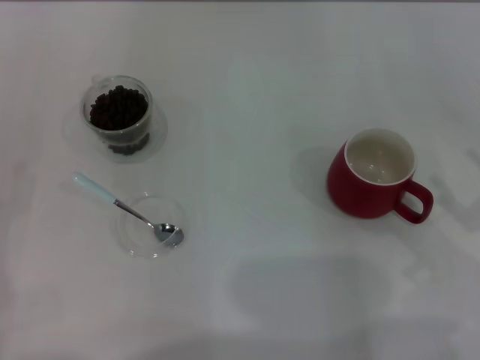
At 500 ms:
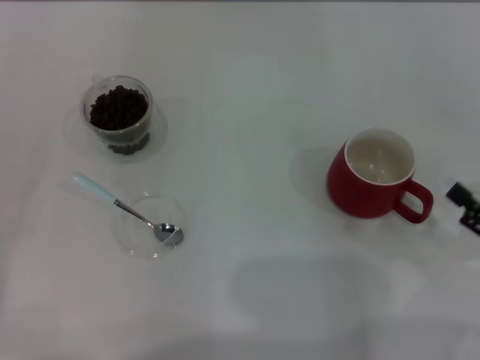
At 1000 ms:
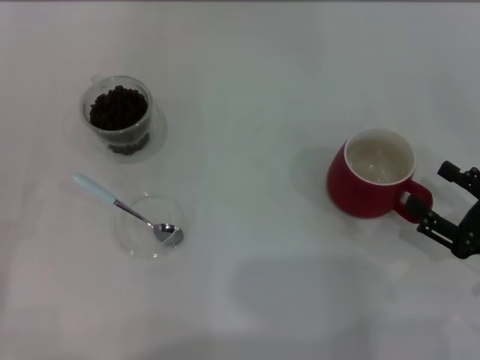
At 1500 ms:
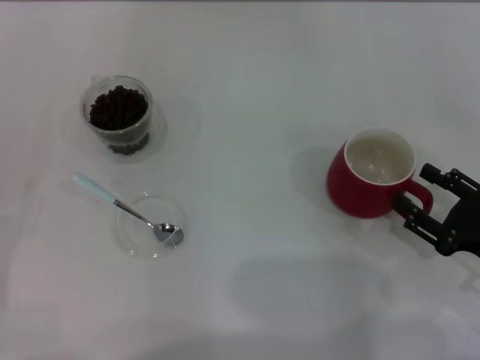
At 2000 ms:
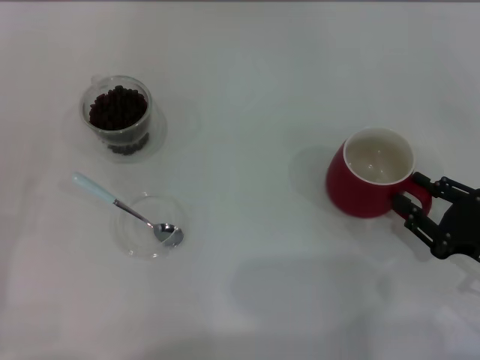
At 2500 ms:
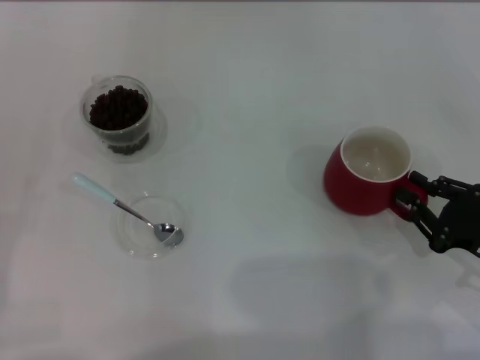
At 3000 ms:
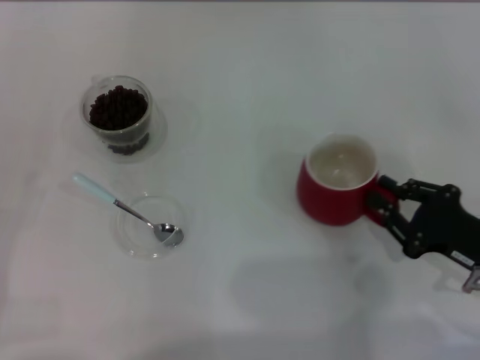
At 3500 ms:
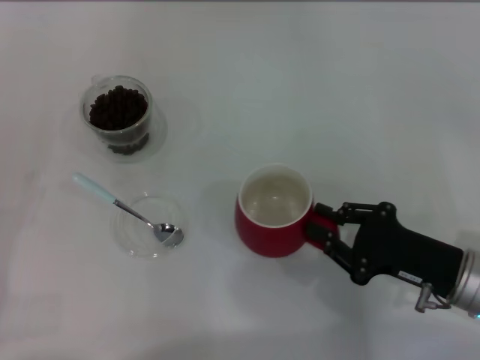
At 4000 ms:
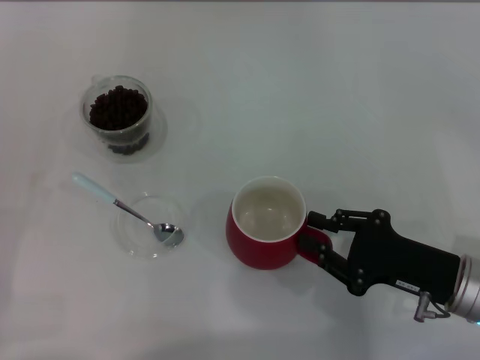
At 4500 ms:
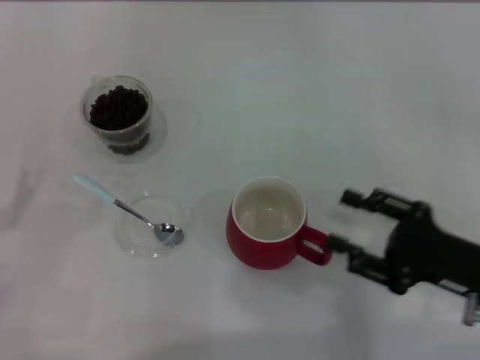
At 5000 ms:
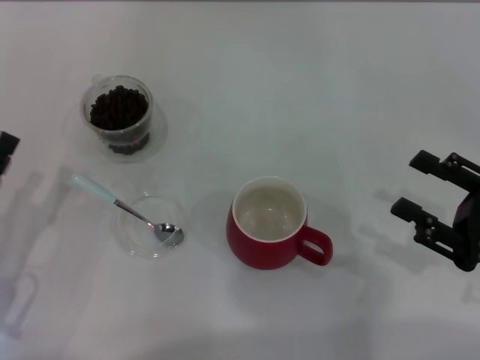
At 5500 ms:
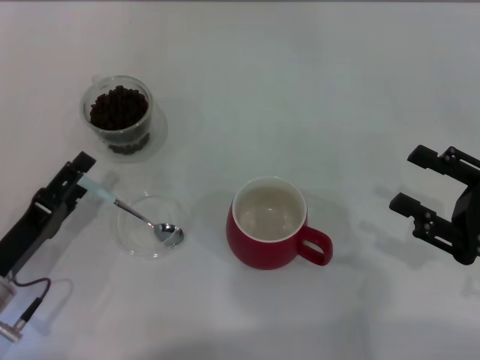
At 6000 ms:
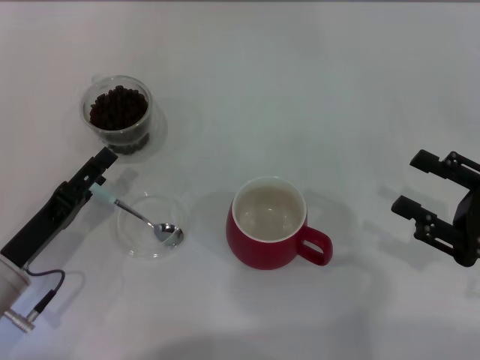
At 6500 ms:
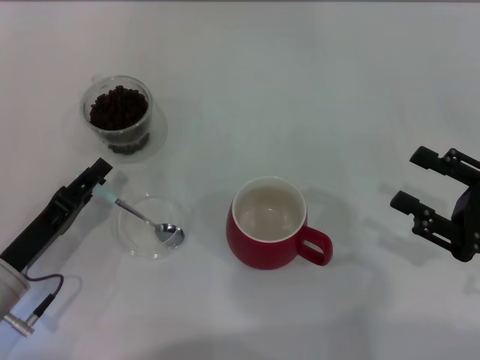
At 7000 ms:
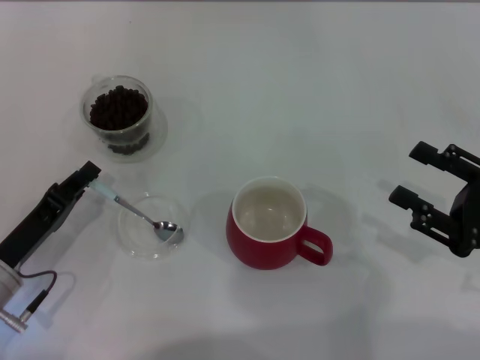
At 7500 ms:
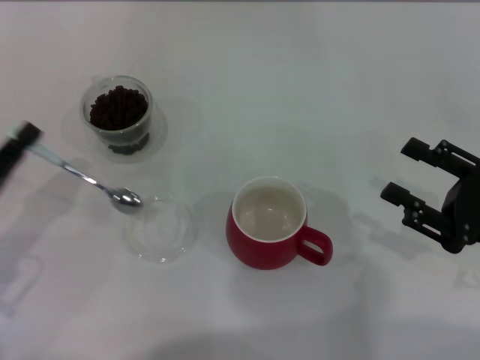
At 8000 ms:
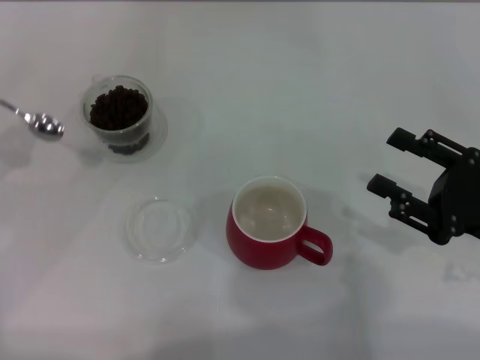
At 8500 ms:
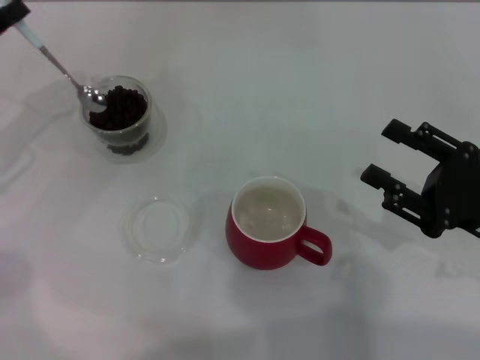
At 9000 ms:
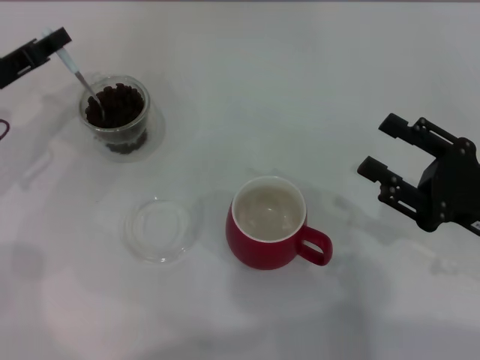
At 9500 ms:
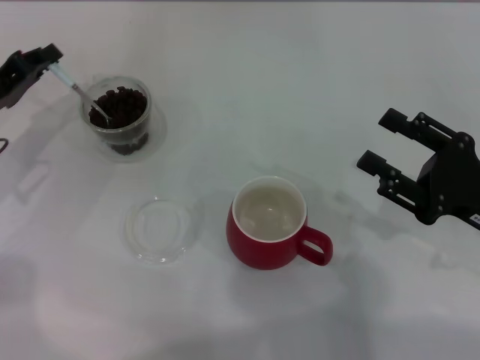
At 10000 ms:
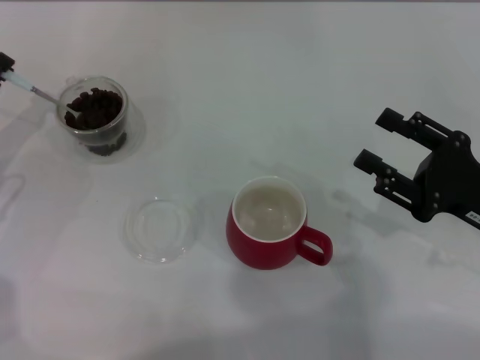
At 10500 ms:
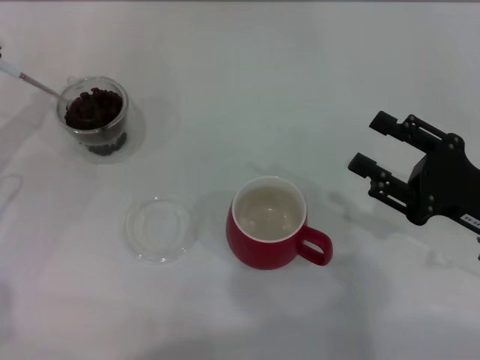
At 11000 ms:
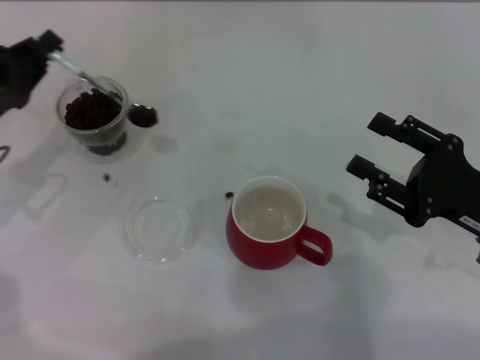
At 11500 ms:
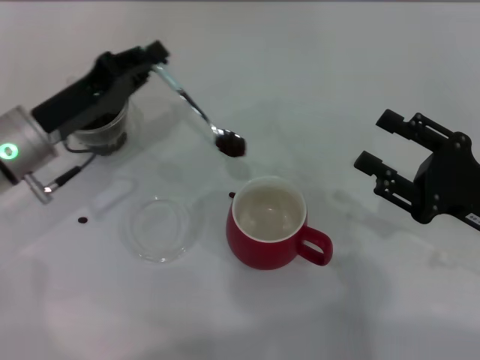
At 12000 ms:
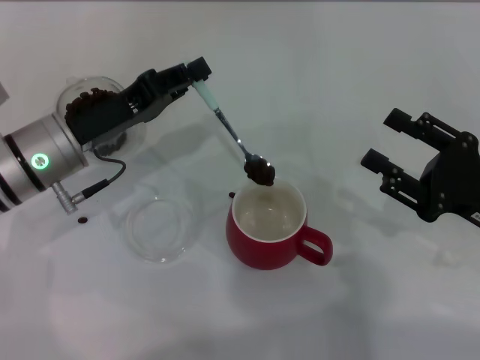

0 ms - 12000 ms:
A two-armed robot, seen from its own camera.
Task of the whole recording: Use a blue spoon to take out the coffee beans from the glass and pour them into the red cup.
Step, 0 ms - 4500 ms: Move the cup to the center of view with the left gripper.
Step, 5000 ms - 7000 ms: Pick up the spoon with the right gripper.
0 ms - 2000 ms: The right gripper moves approximately 5 cm, and closes its fingers.
2000 ms - 4000 ms: The right gripper goes some 5 cm to the left.
4000 ms - 6000 ms: The right gripper shifts some 5 cm to the right, and opens. Meanwhile the left gripper goes about 10 cm to the right.
6000 ms - 8000 ms: The left gripper shifts about 15 cm to the left and upward, and closes.
8000 ms - 10000 ms: The left gripper goes roughly 5 cm forward.
10000 ms - 12000 ms: The left gripper shifts approximately 15 cm to the right.

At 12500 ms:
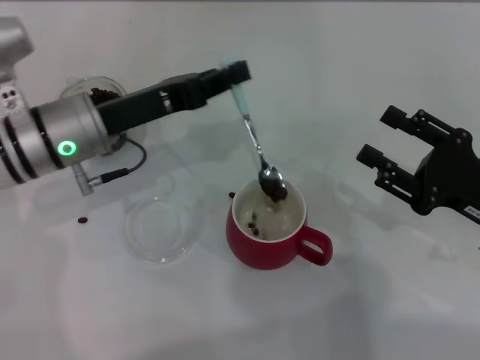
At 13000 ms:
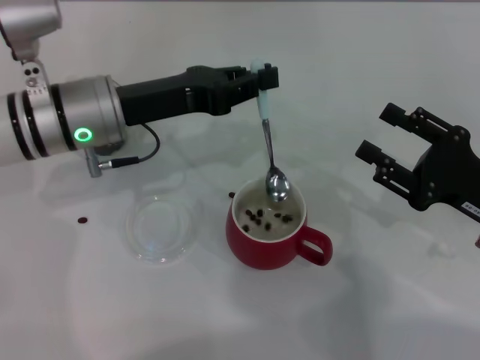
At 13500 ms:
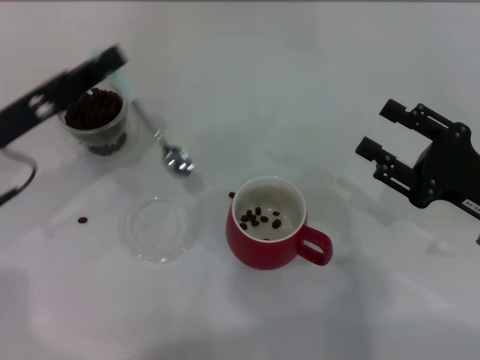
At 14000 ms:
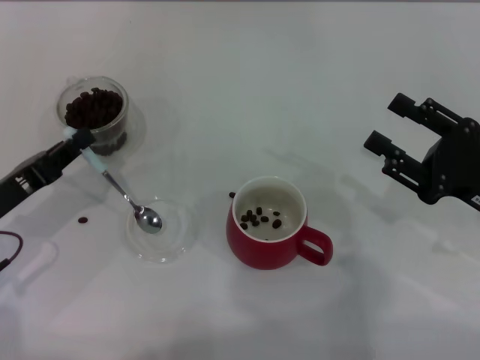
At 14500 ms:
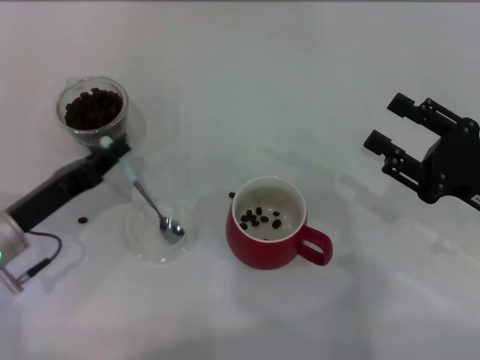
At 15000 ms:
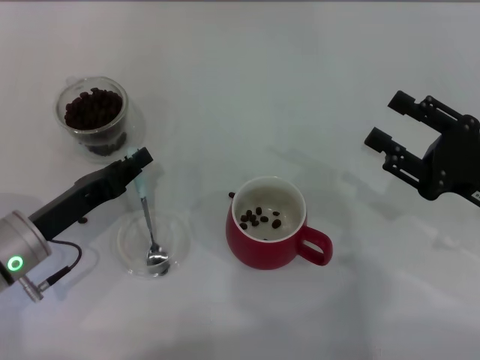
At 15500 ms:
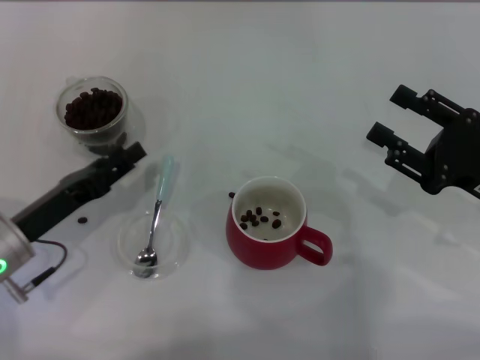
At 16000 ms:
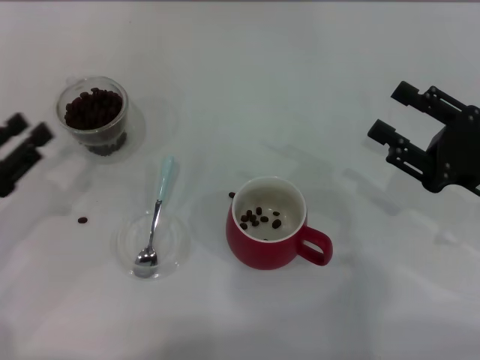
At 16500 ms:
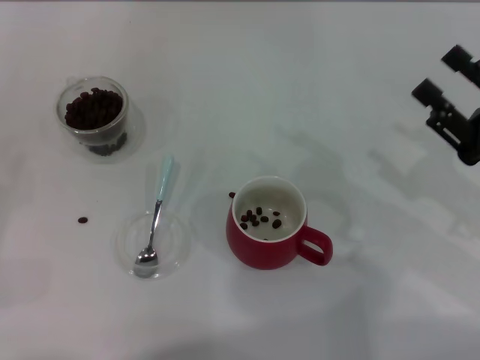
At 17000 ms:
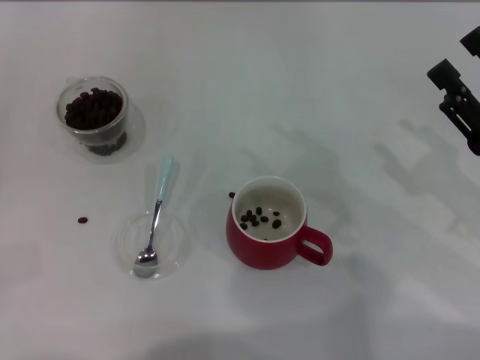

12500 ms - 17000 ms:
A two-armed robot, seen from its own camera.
Task of the whole recording: Use a blue spoon to take out the coffee beans from the glass and pour them into the red cup.
12500 ms - 14500 ms: The left gripper shifts about 15 cm to the left, backward and downward.
14500 ms - 17000 ms: The left gripper moves to the left, roughly 15 cm, and opens.
